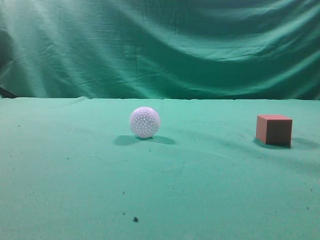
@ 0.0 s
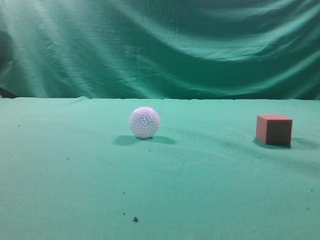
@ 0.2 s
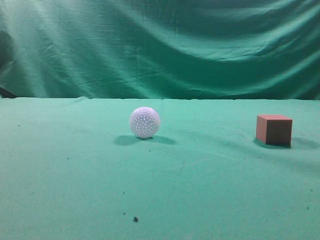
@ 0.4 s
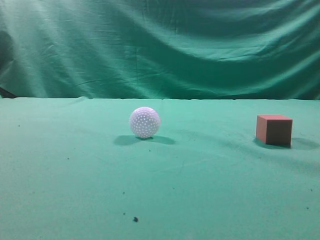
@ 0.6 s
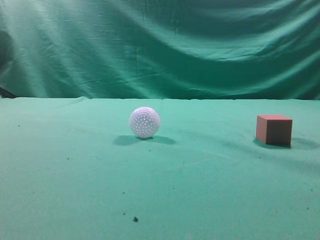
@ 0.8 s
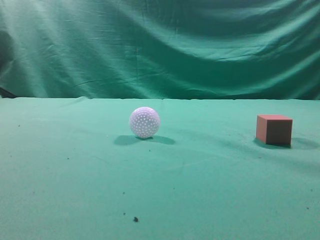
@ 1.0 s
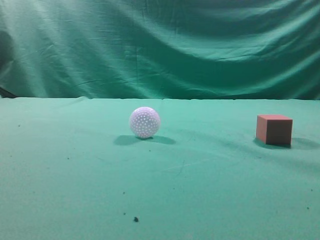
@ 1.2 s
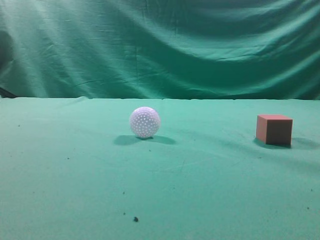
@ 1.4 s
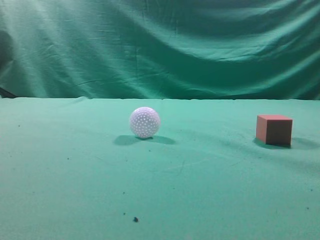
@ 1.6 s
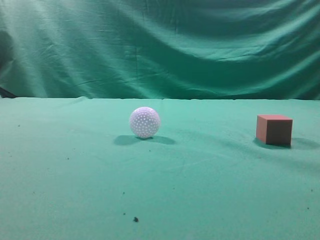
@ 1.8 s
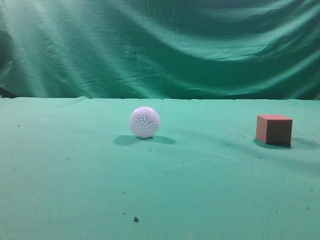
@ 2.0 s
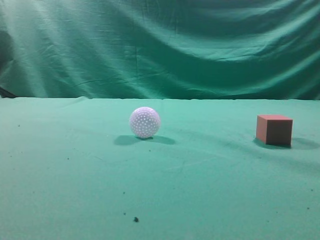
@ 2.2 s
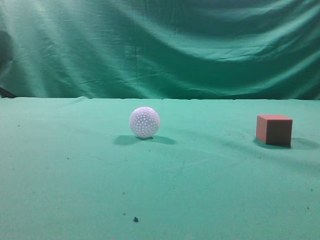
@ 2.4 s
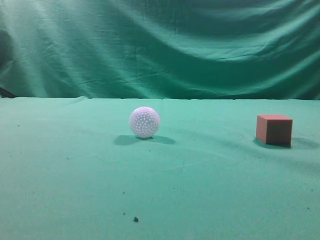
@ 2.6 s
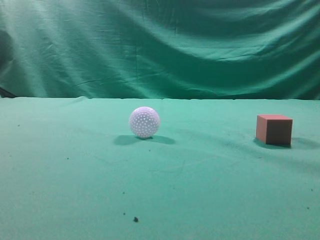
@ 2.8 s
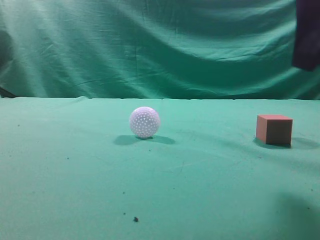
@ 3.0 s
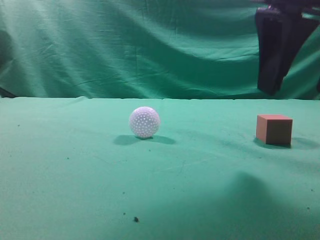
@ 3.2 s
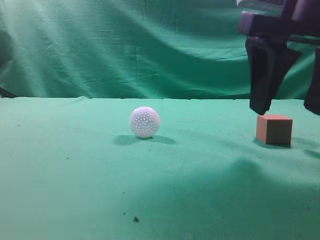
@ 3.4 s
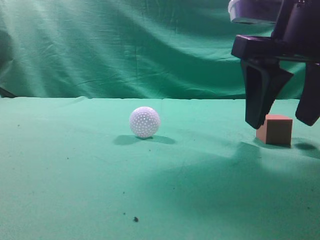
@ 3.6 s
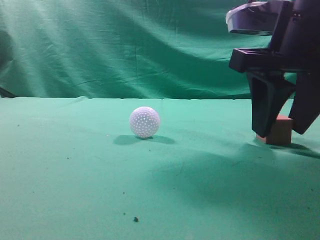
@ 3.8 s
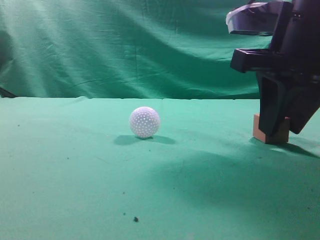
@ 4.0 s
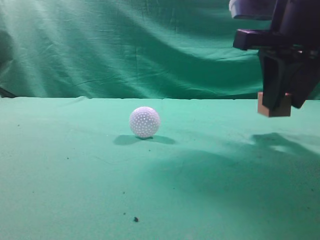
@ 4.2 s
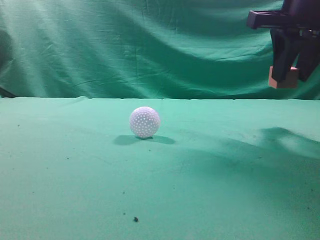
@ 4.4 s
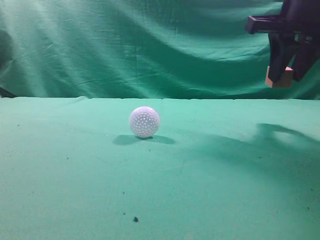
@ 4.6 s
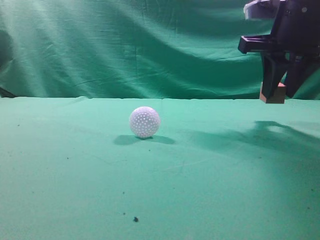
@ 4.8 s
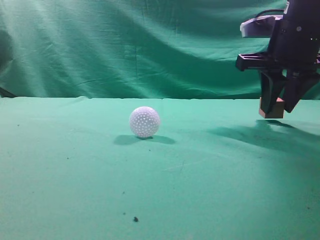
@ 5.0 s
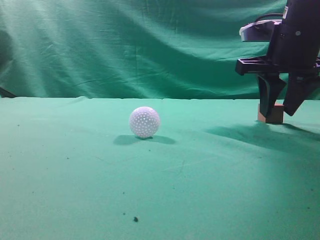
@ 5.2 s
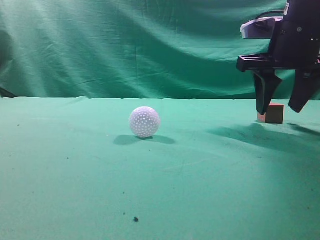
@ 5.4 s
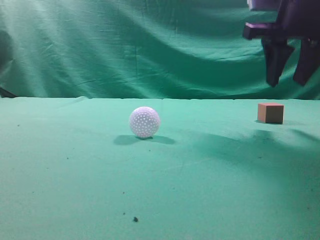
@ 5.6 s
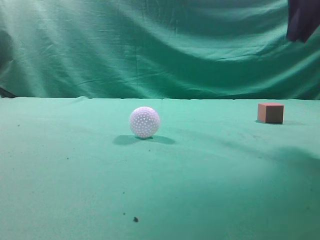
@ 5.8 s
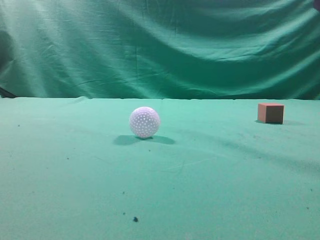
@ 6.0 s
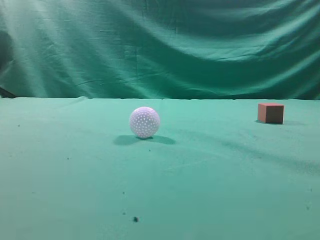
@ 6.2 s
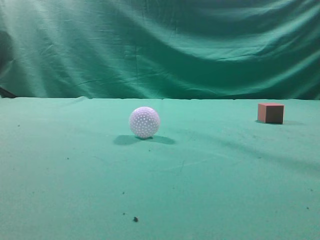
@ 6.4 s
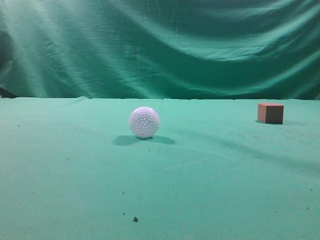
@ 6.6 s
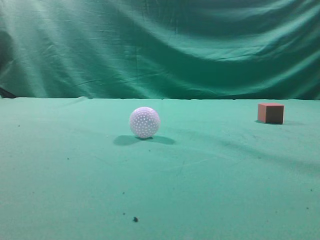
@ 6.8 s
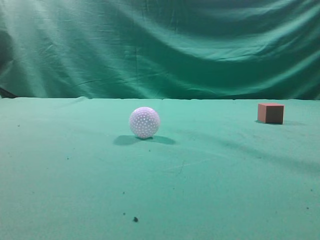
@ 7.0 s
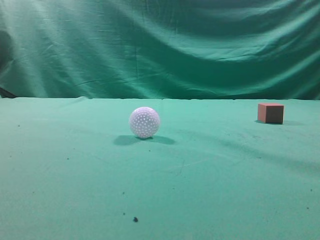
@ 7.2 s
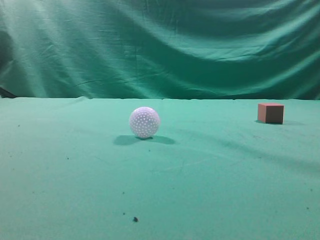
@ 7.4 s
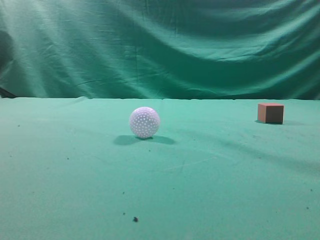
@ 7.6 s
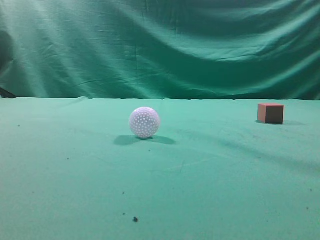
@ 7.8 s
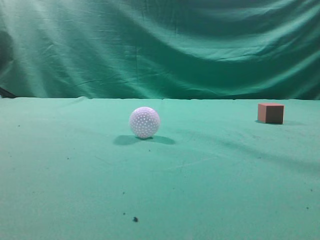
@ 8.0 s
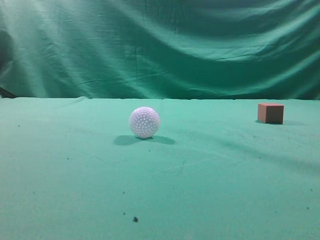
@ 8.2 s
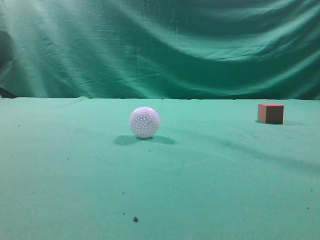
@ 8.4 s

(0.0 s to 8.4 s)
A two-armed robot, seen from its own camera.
Task of the whole recording: pick up the cube block and place it in another position on the table.
Step, 0.0 s - 4.0 s: Pick up the small cube.
Step, 4.4 s - 5.4 s: Place the small cube on the ahead of the table.
2.8 s - 4.2 s: The right gripper moves forward, approximately 10 cm, and opens, then closes again.
4.2 s - 5.6 s: The right gripper shifts by about 5 cm.
5.6 s - 7.0 s: The right gripper goes roughly 25 cm backward, and closes its fingers.
